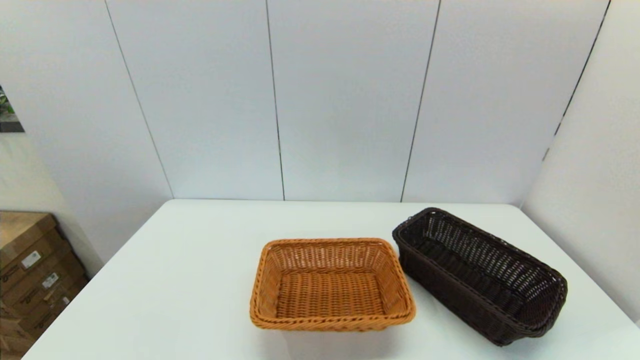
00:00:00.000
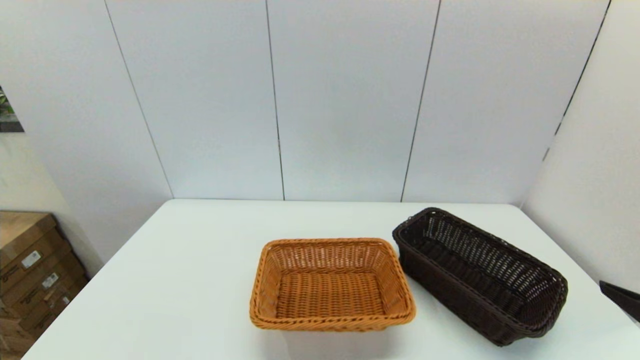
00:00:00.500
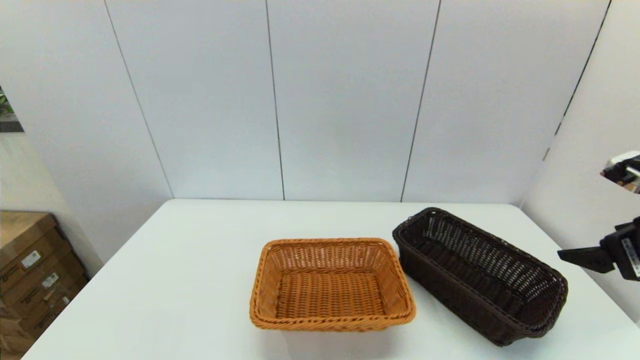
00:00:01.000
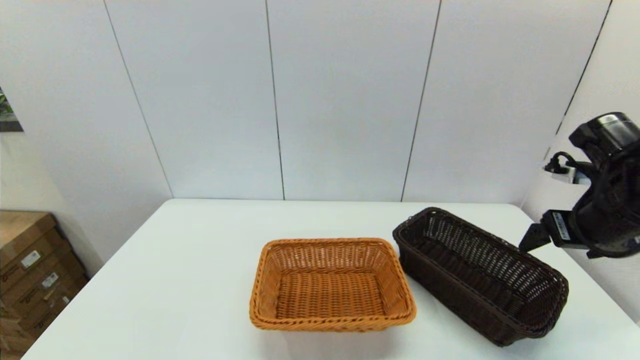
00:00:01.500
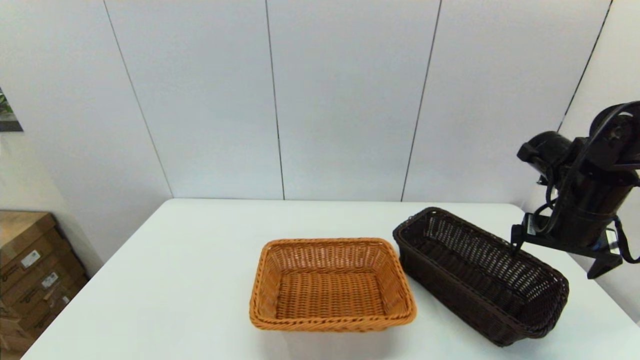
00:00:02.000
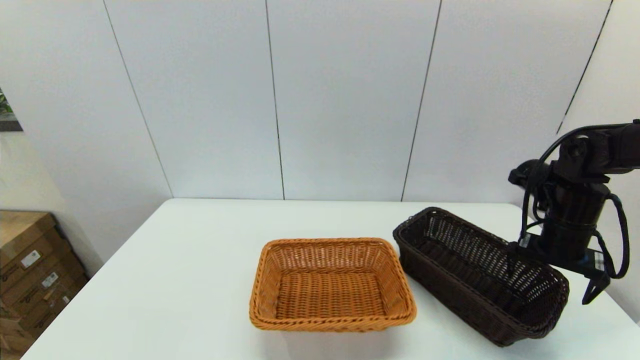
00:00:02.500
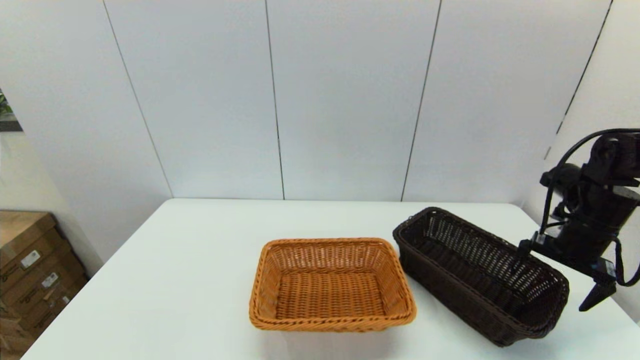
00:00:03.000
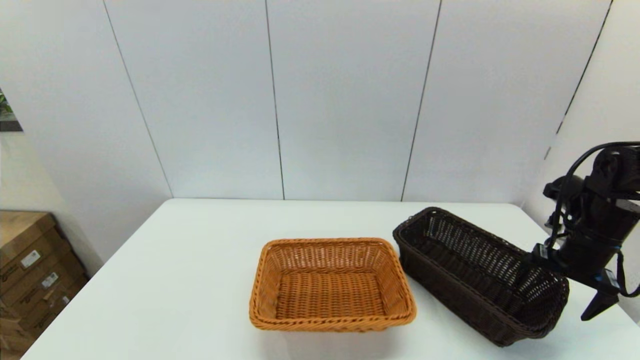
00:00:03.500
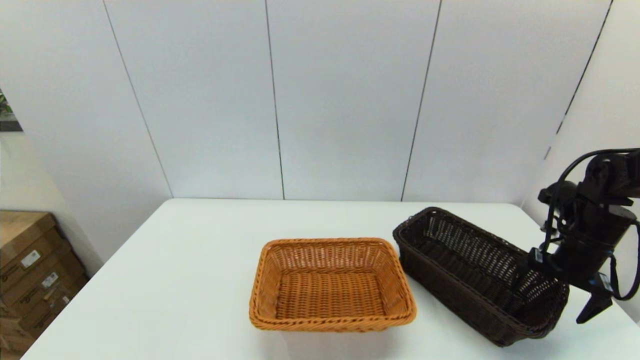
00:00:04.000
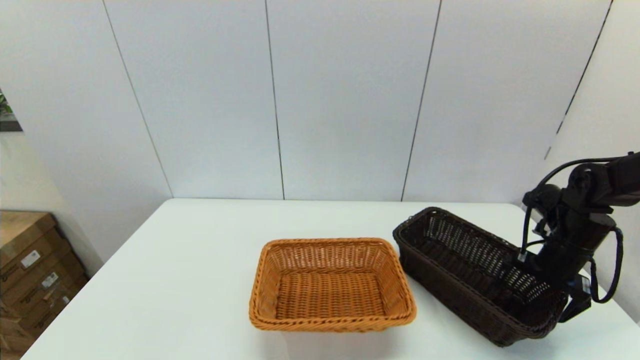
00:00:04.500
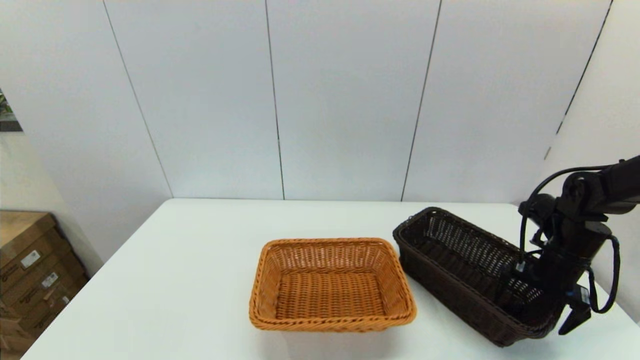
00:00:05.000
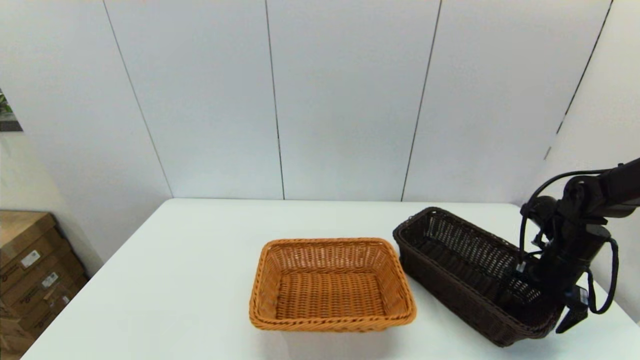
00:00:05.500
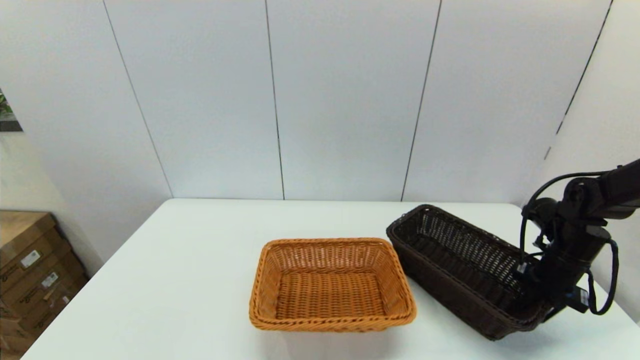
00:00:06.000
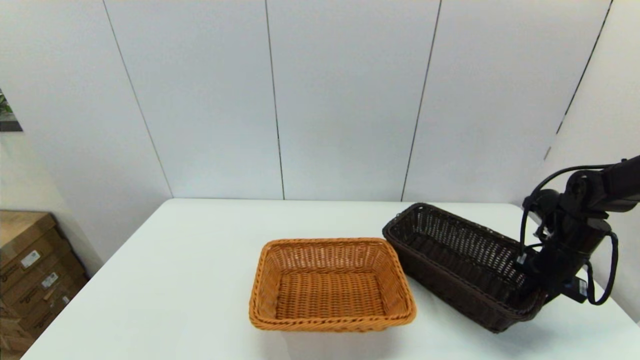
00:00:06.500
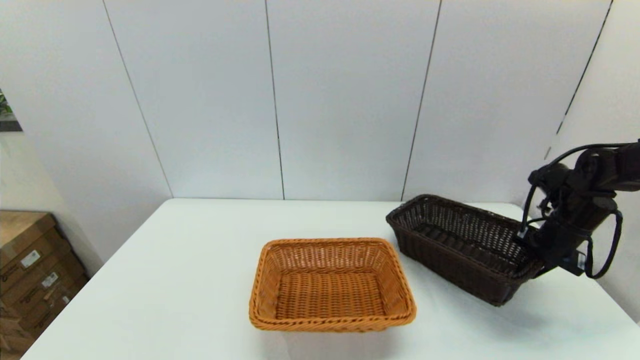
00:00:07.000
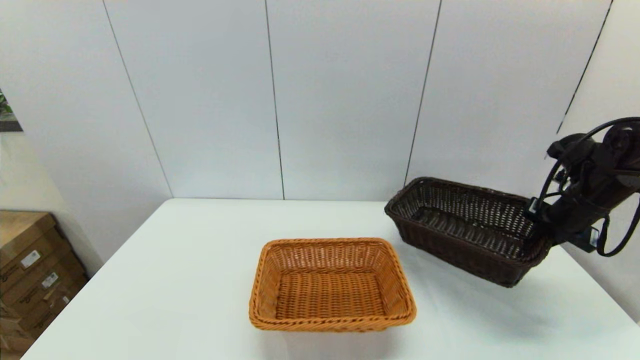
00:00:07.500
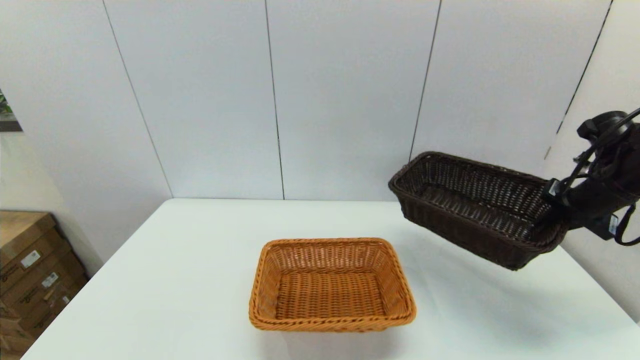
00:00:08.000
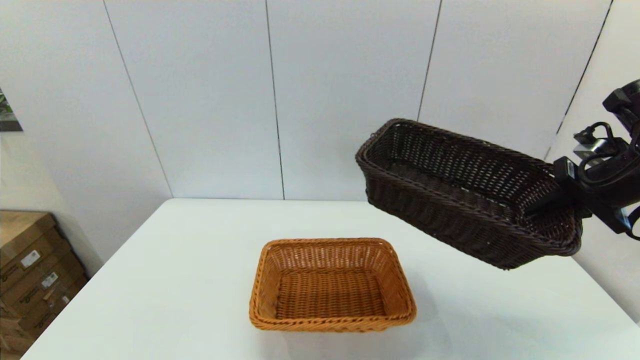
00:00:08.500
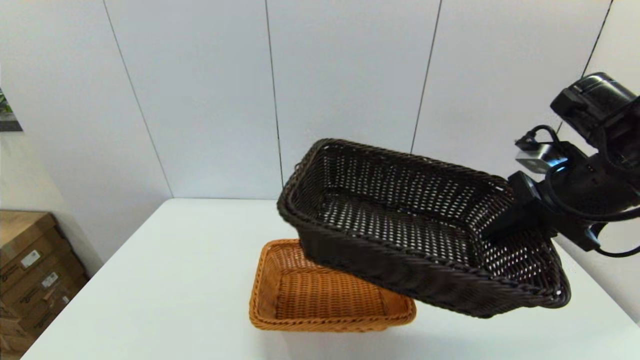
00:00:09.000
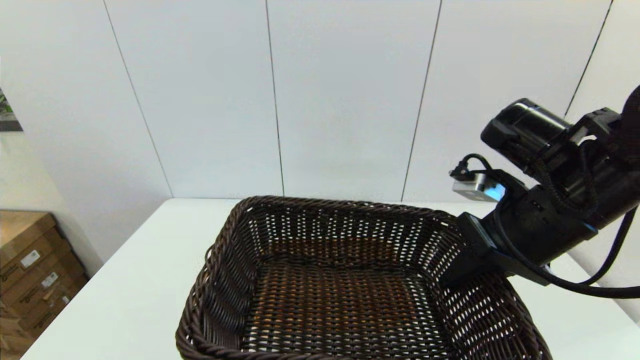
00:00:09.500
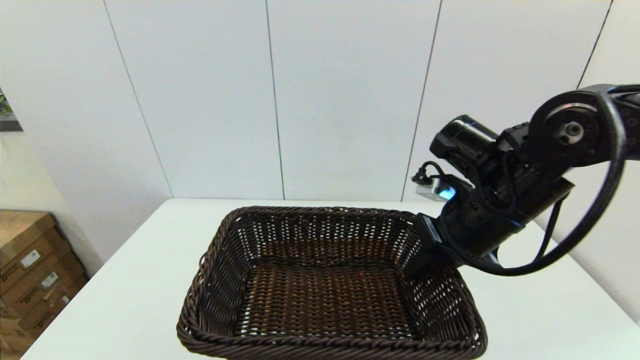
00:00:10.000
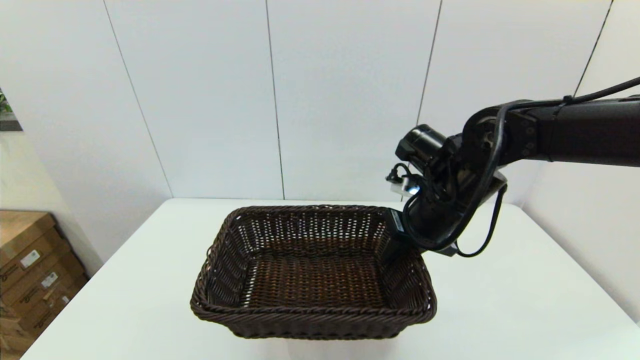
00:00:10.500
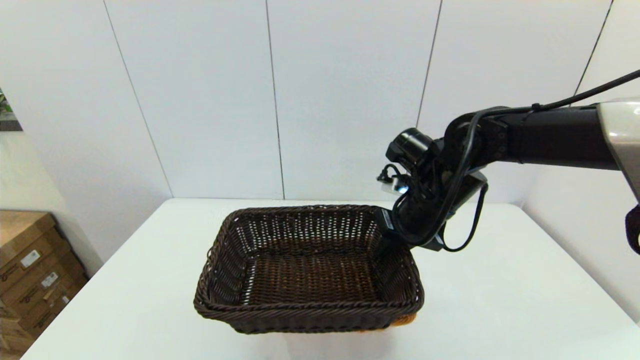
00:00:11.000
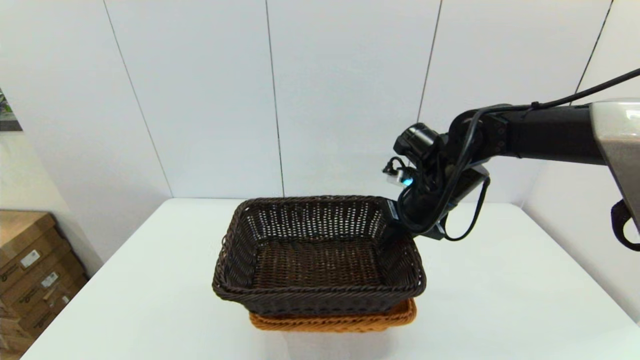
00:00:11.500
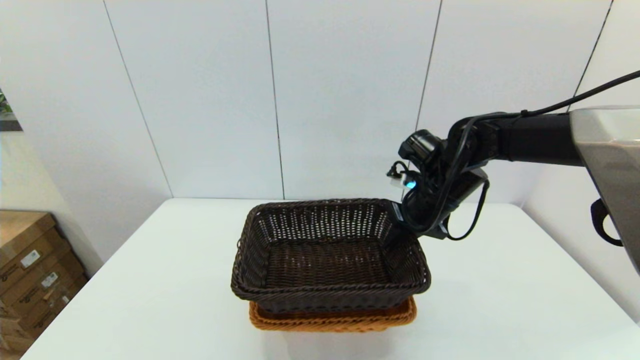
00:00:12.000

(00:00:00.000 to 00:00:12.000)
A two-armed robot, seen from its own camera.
Task of the whole recording: stack a basket on top of another basket.
Step, 00:00:00.000 - 00:00:05.500: Grasp the dark basket with the right gripper.
00:00:00.000 - 00:00:02.000: The right gripper goes some 30 cm forward.
00:00:02.000 - 00:00:04.000: The right gripper heads downward and to the right, covering about 10 cm.
00:00:04.000 - 00:00:06.000: The right gripper closes its fingers.
00:00:06.000 - 00:00:08.000: The right gripper heads upward, covering approximately 15 cm.
00:00:08.000 - 00:00:10.000: The right gripper heads to the left, covering roughly 20 cm.
00:00:10.000 - 00:00:12.000: The right gripper is displaced forward and downward by some 10 cm.

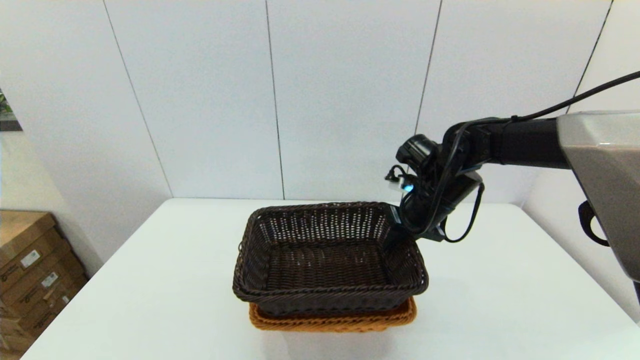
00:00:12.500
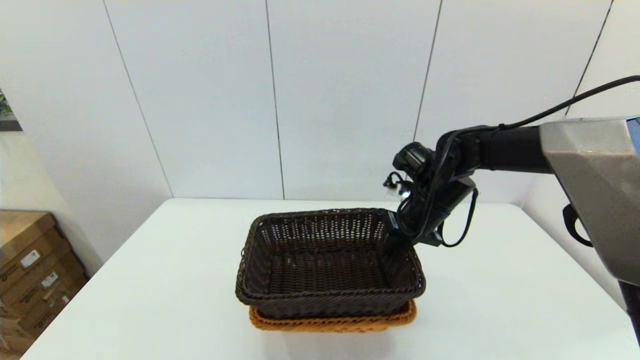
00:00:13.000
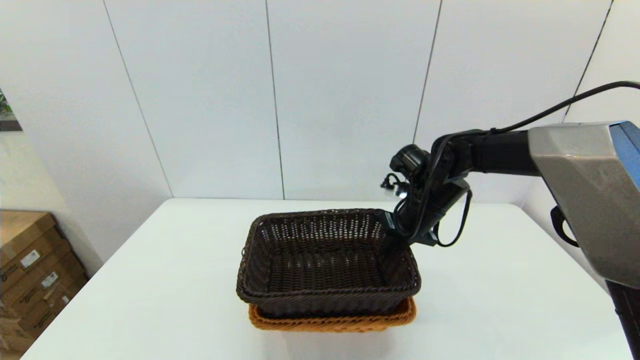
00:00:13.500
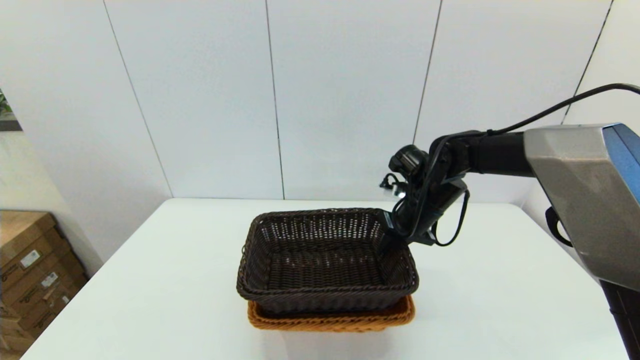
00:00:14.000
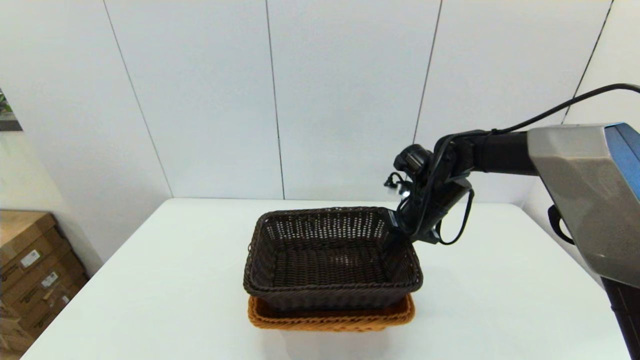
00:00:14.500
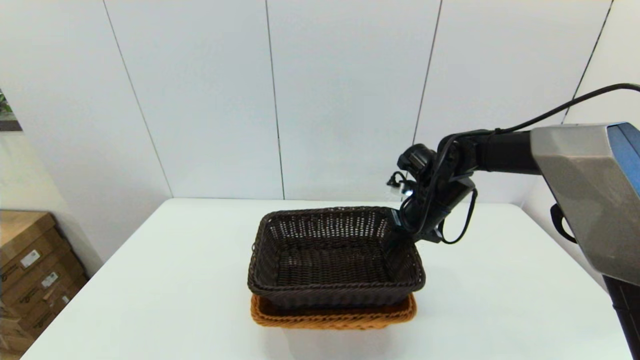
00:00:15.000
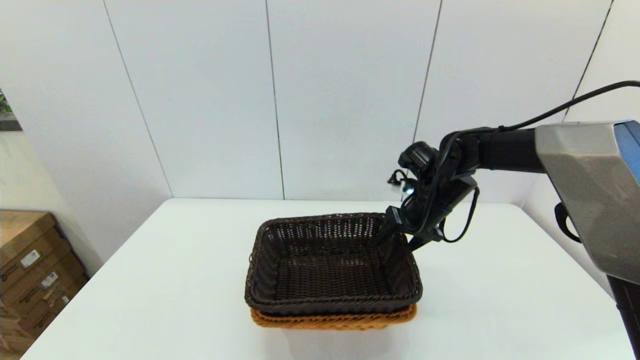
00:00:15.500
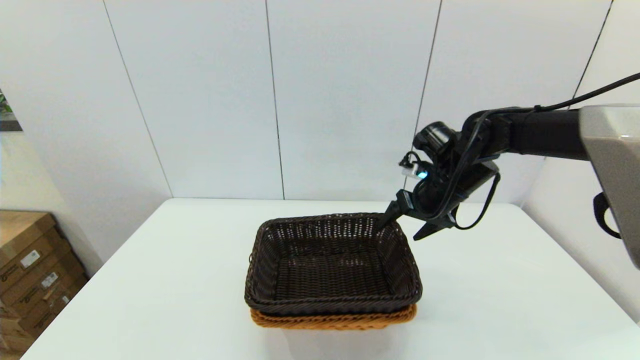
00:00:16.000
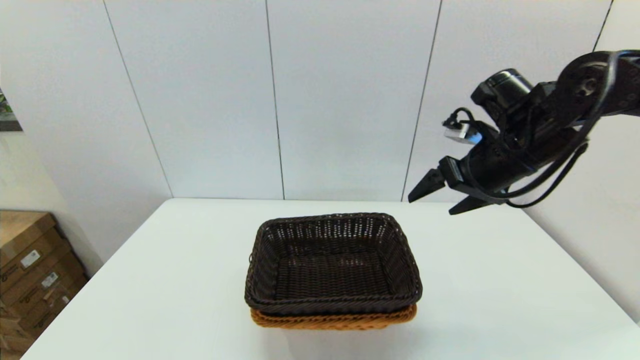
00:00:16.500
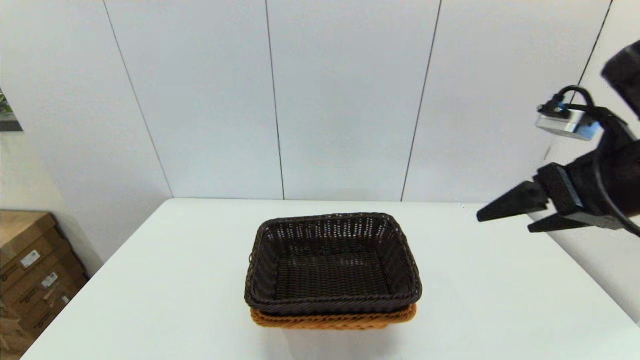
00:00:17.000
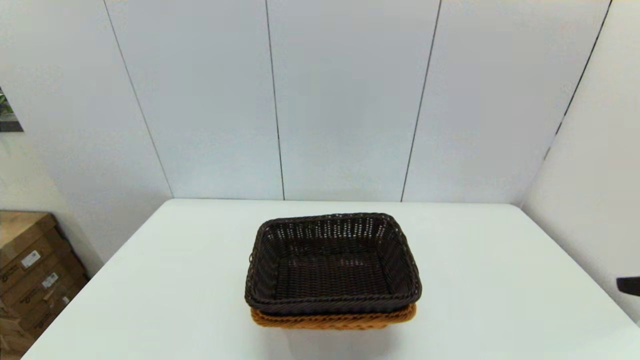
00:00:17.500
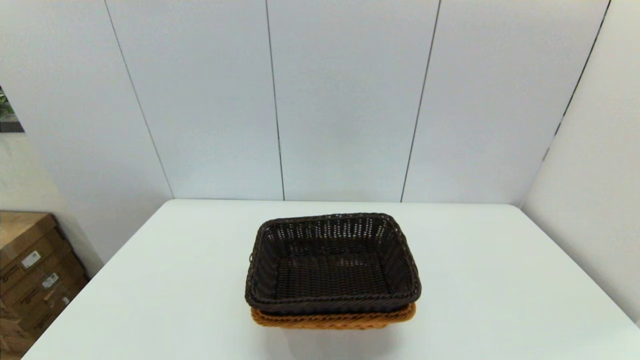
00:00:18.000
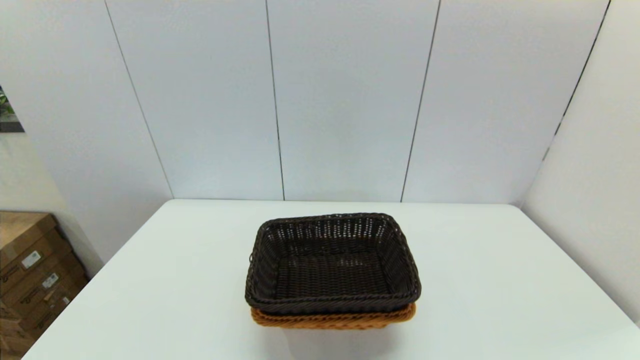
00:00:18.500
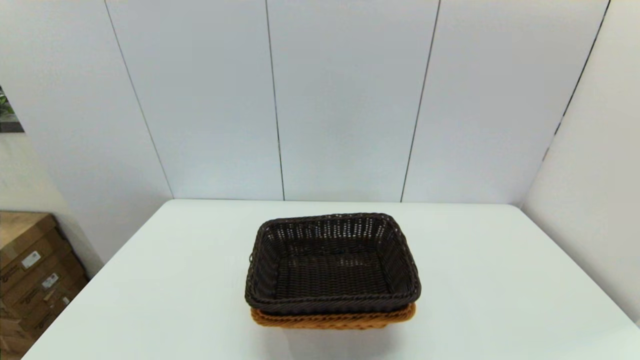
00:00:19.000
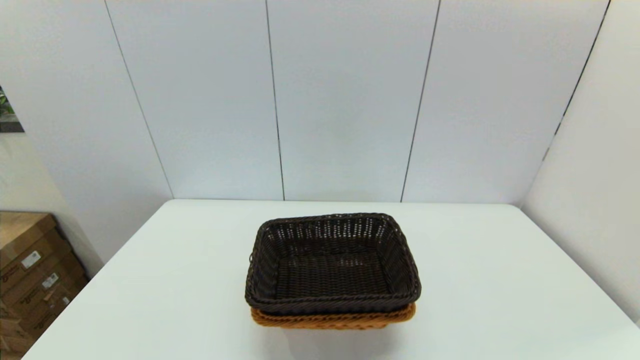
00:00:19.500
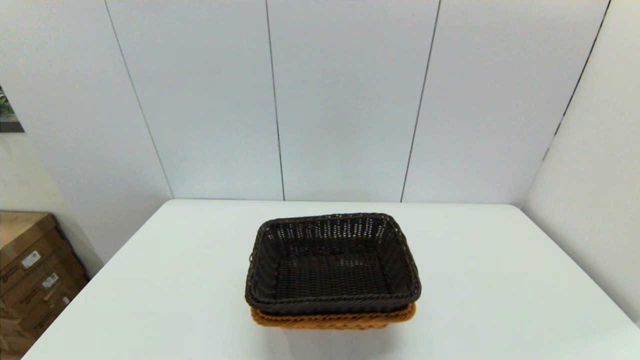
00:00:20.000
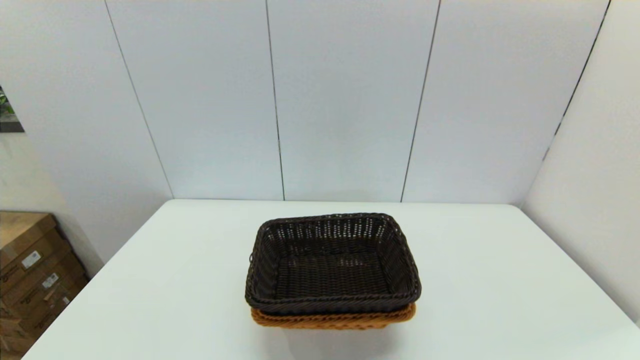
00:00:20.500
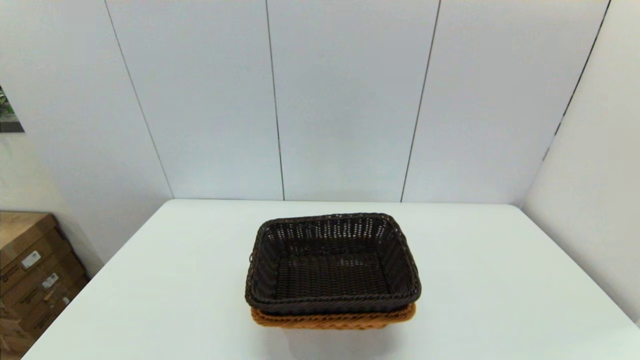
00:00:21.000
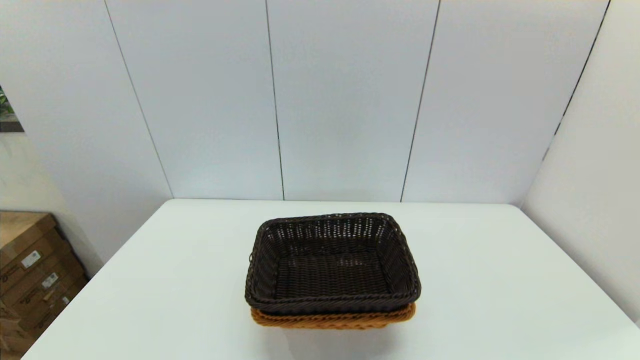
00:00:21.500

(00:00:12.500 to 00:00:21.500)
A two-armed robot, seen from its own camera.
Task of the whole recording: stack a basket on top of another basket.
Step, 00:00:12.500 - 00:00:16.000: Place the dark basket into the light color basket with the right gripper.
00:00:12.500 - 00:00:14.500: The grippers make only small movements.
00:00:14.500 - 00:00:17.000: The right gripper travels backward, upward and to the right by roughly 30 cm, and opens up.
00:00:17.000 - 00:00:19.500: The right gripper heads backward and downward, covering approximately 30 cm.
